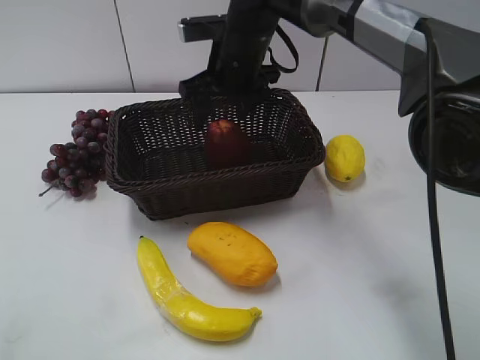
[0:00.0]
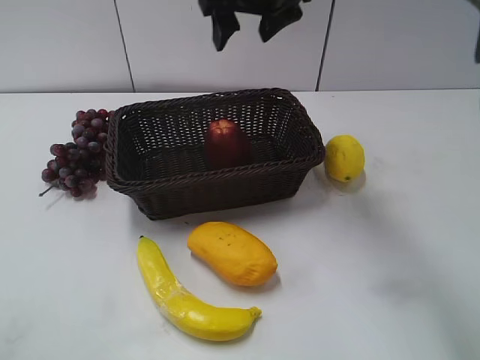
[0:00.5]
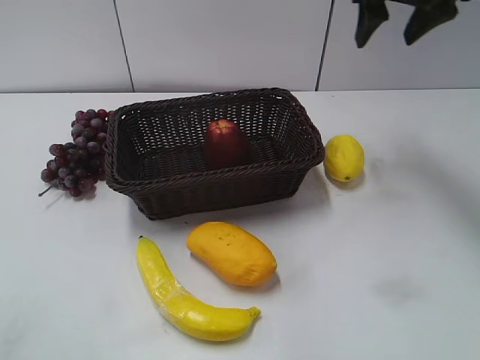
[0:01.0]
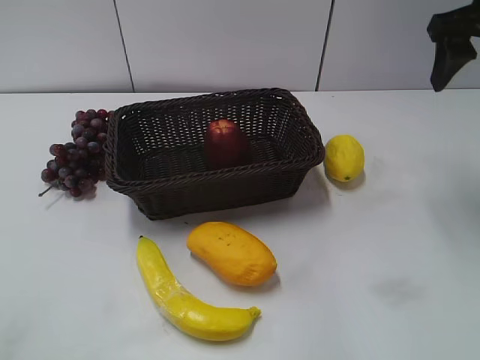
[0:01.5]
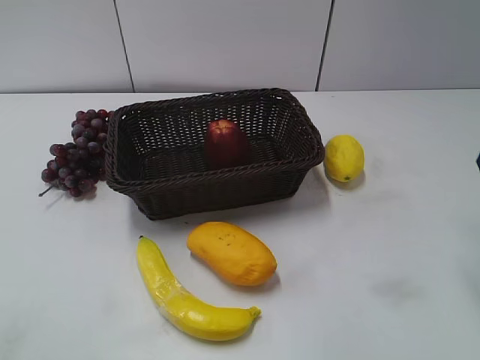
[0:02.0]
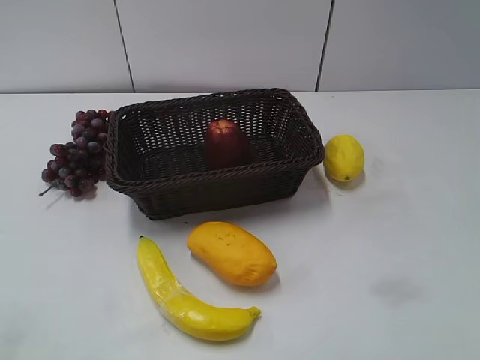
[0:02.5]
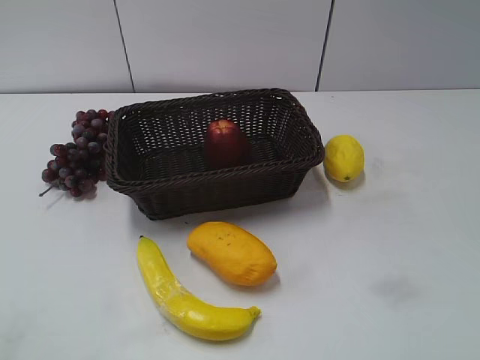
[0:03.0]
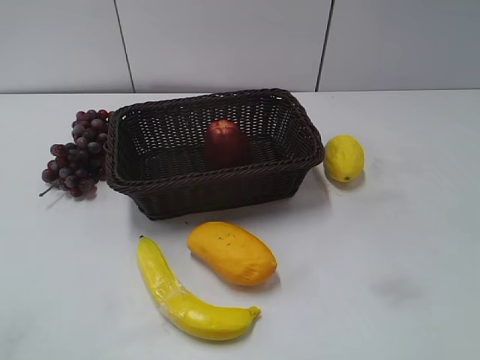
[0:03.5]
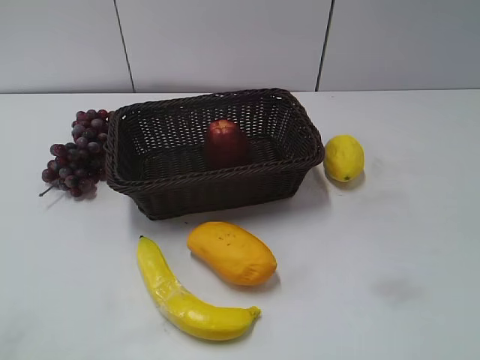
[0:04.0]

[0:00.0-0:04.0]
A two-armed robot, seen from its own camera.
0:00.0 to 0:02.0: The right gripper is displaced to the right and backward by about 35 cm.
